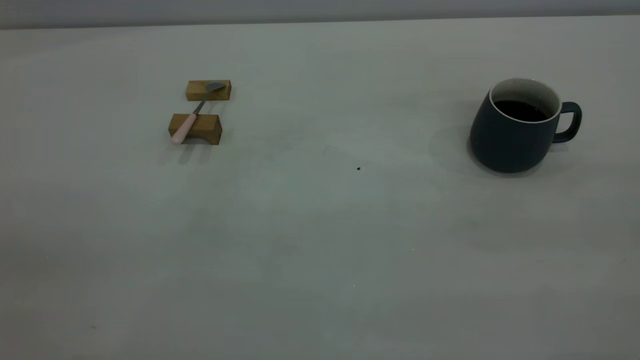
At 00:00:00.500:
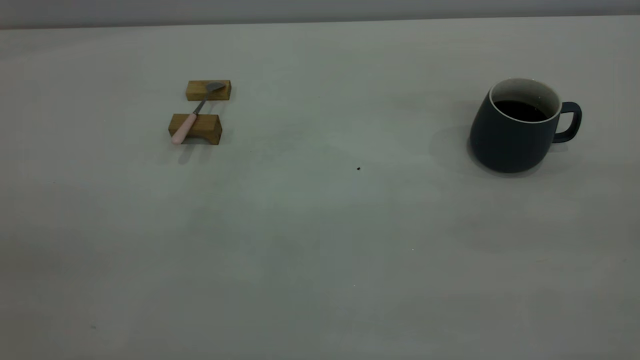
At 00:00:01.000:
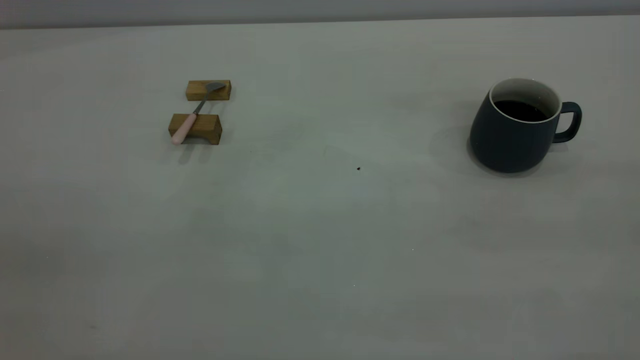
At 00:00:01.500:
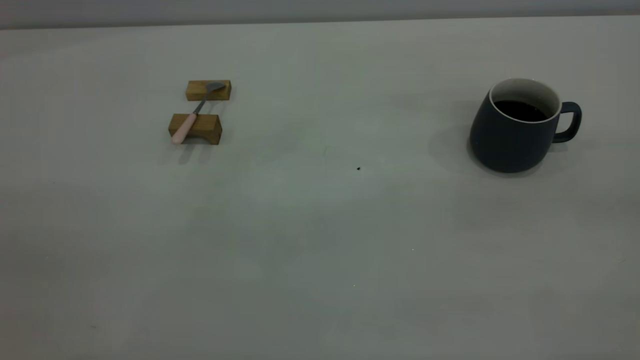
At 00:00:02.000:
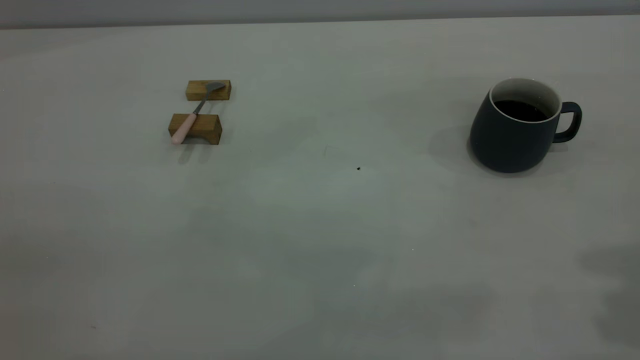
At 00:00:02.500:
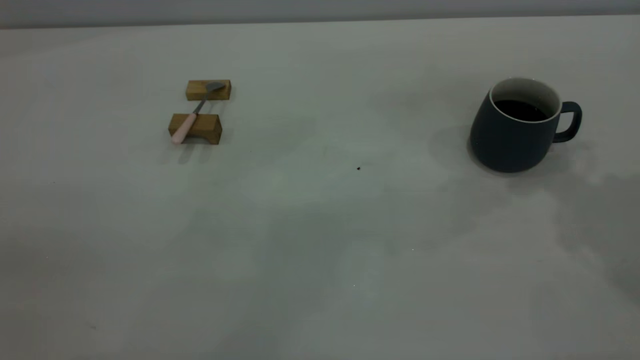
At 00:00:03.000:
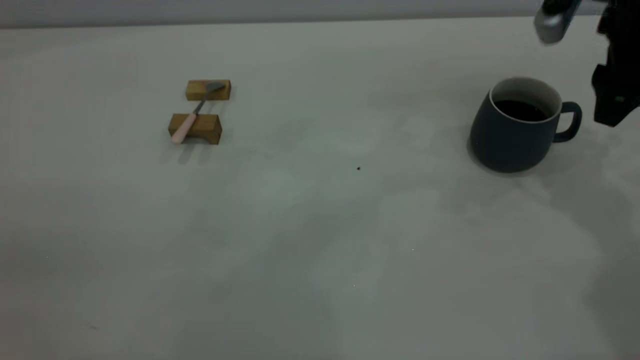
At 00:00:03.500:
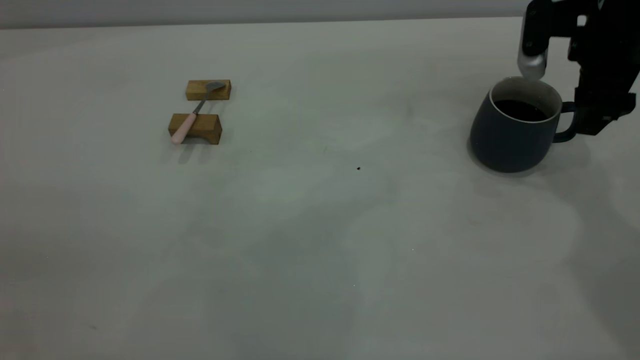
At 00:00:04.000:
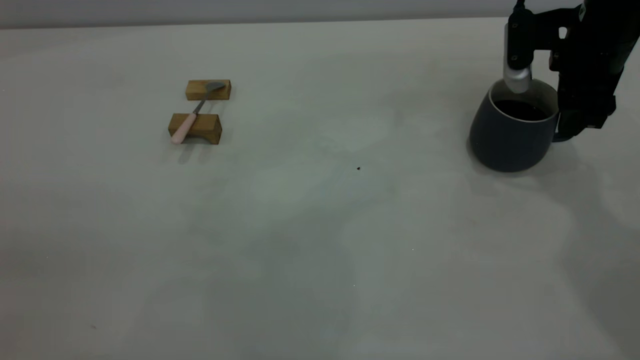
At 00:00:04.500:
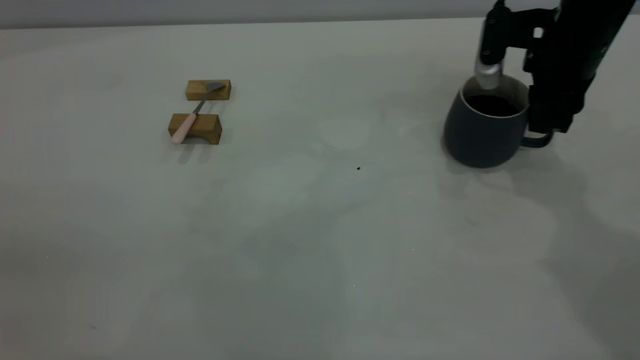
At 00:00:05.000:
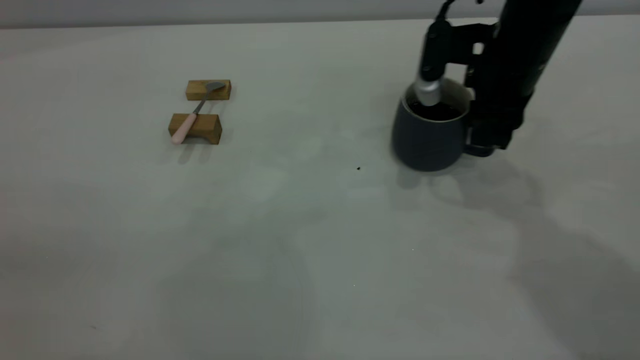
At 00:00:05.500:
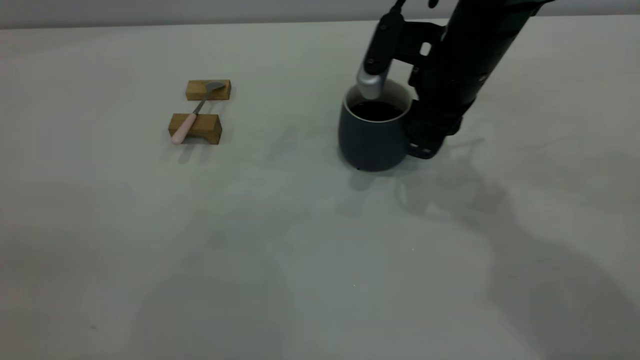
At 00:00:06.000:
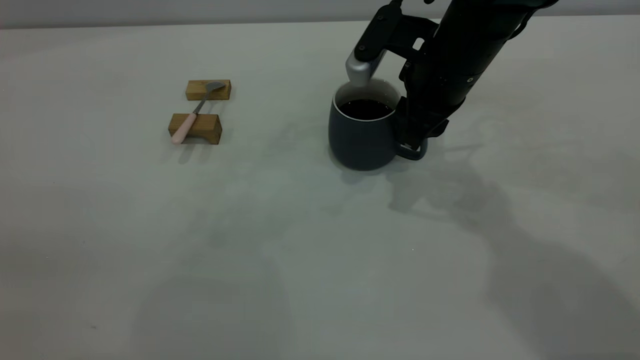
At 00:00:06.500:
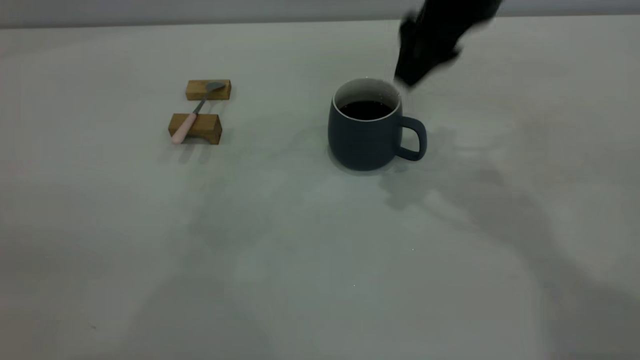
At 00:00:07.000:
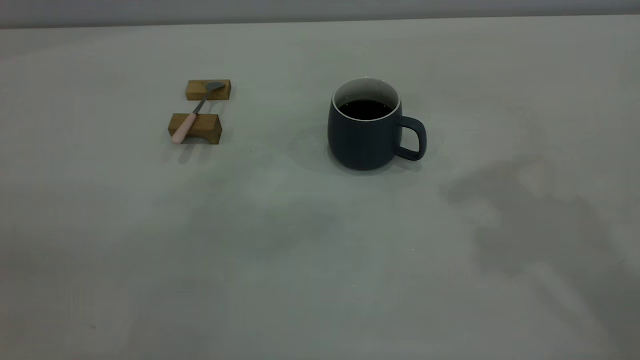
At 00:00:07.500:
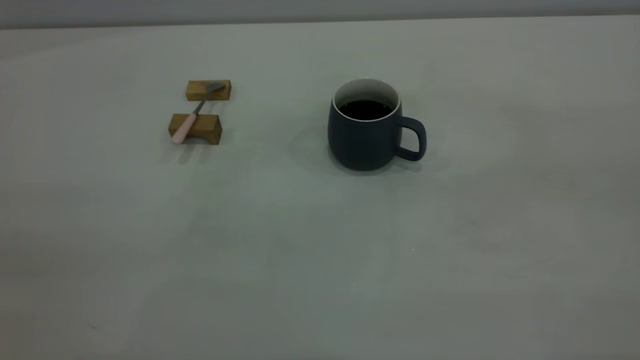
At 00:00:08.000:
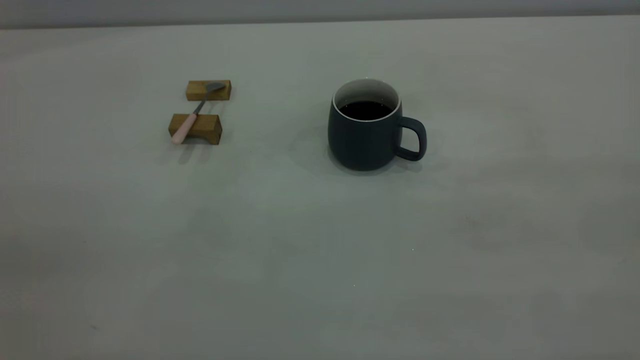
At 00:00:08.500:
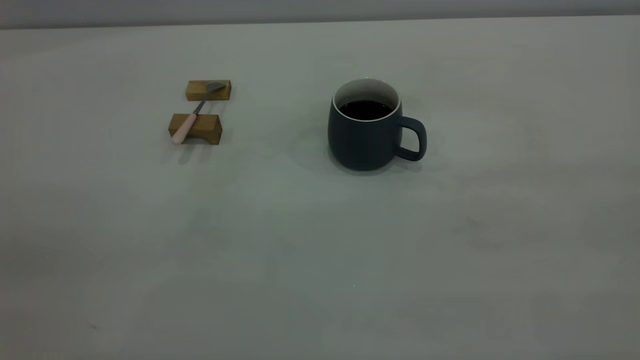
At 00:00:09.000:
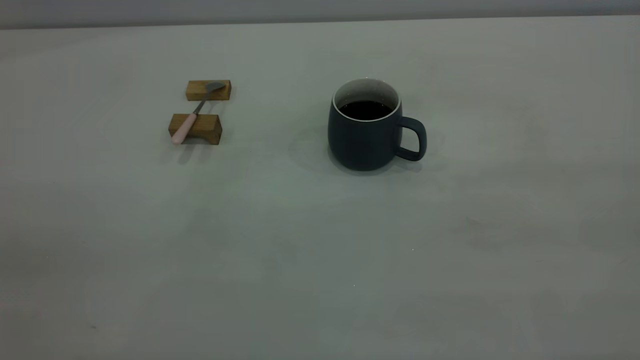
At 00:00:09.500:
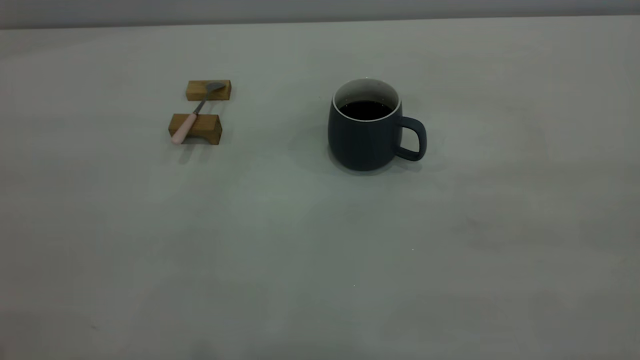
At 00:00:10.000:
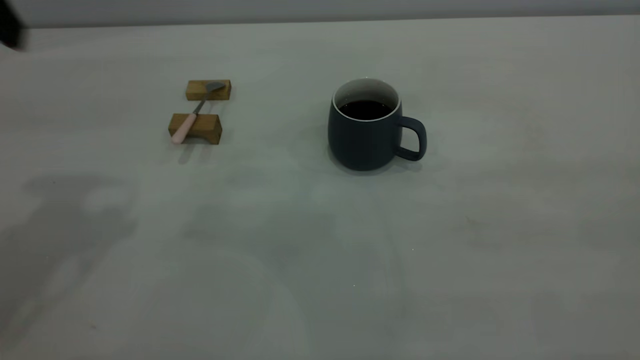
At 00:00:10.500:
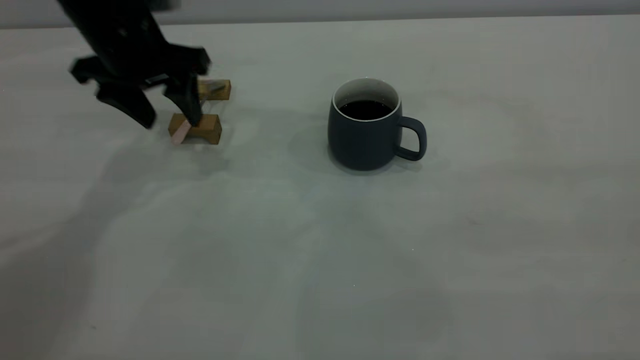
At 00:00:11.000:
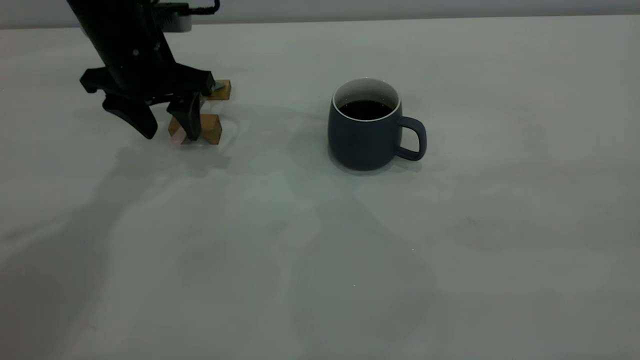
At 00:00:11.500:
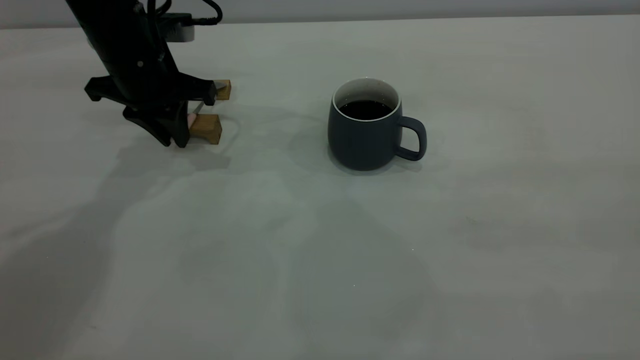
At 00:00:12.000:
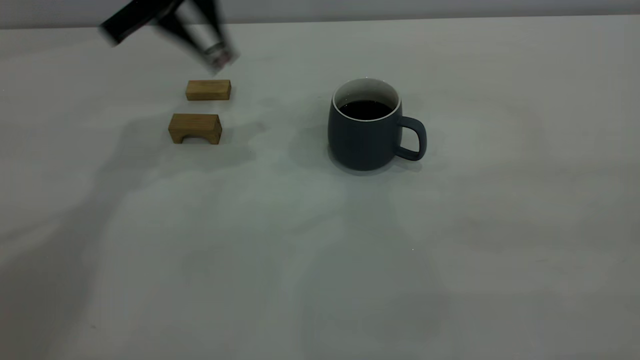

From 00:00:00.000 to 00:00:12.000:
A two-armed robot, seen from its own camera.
Step, from 00:00:00.000 to 00:00:06.000: Move the cup with coffee to the center of view.
Step, from 00:00:07.000 to 00:00:11.500: Pick up the spoon.
From 00:00:02.000 to 00:00:04.000: The right gripper travels forward and downward by roughly 30 cm, and closes its fingers.
From 00:00:04.000 to 00:00:06.000: The right gripper shifts some 15 cm to the left.
From 00:00:06.000 to 00:00:08.000: The right gripper goes approximately 50 cm backward, upward and to the right, and opens.
From 00:00:10.000 to 00:00:12.000: The left gripper moves forward and to the right, some 20 cm, reaches some 15 cm downward, then returns, and closes its fingers.

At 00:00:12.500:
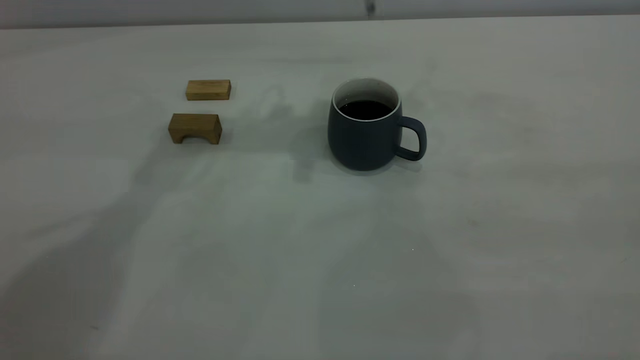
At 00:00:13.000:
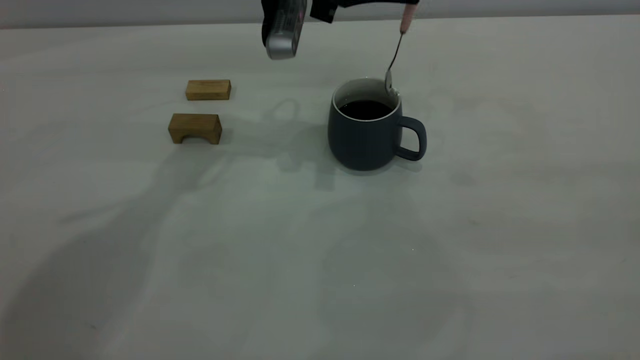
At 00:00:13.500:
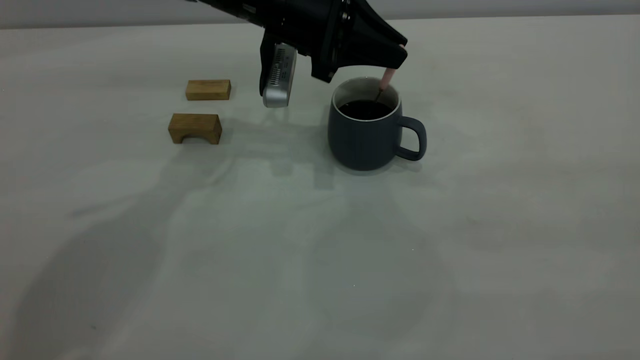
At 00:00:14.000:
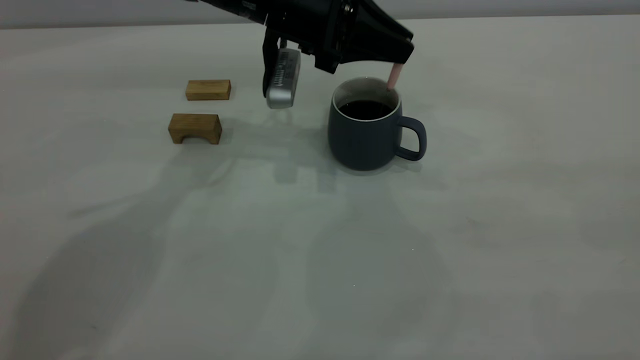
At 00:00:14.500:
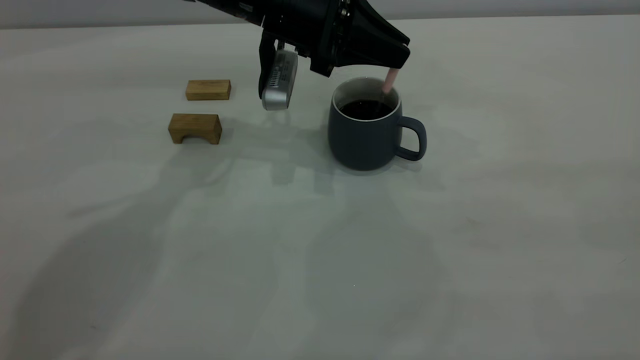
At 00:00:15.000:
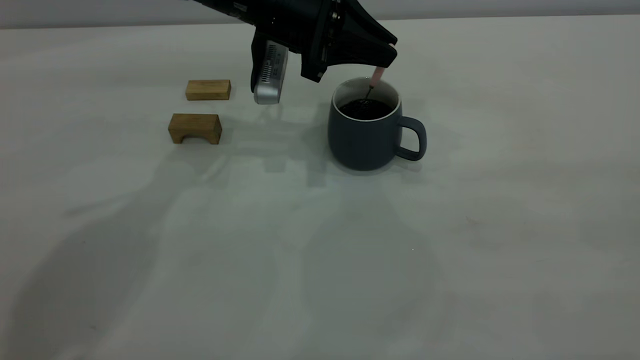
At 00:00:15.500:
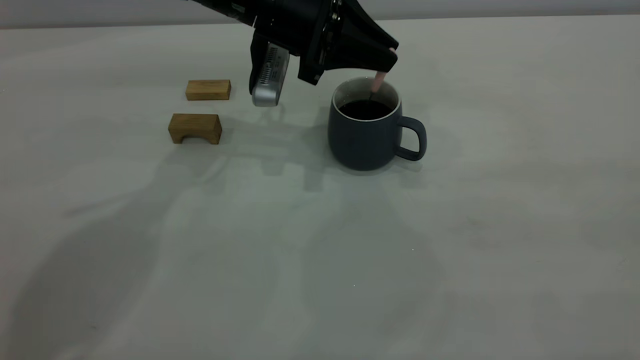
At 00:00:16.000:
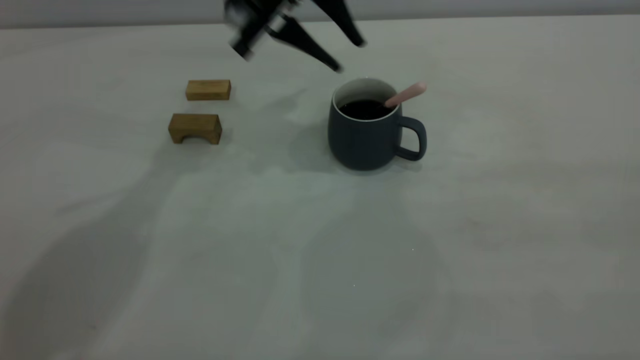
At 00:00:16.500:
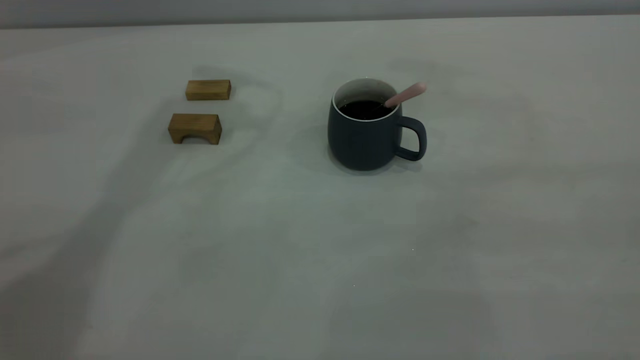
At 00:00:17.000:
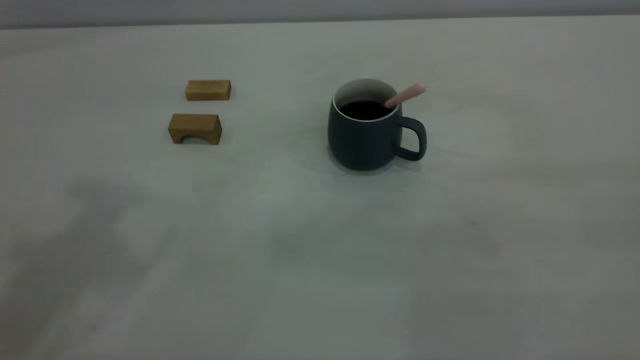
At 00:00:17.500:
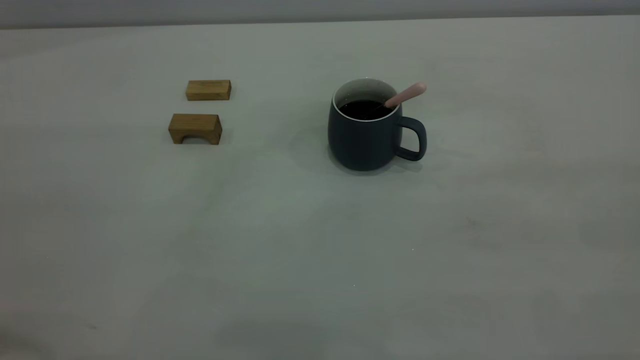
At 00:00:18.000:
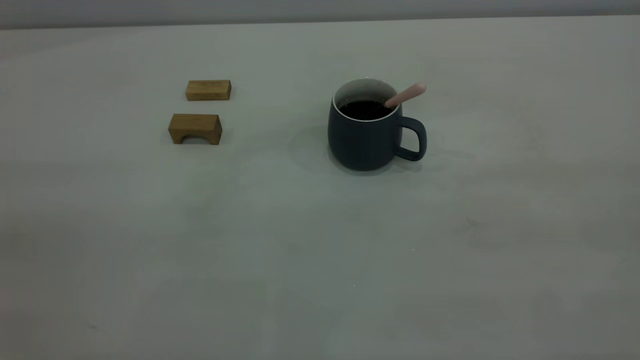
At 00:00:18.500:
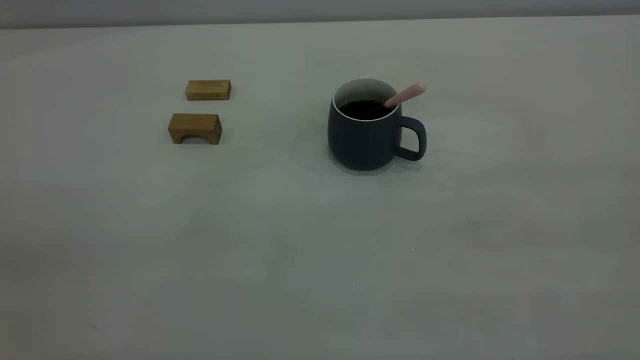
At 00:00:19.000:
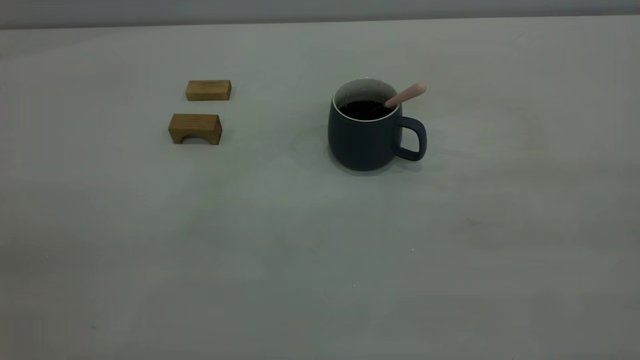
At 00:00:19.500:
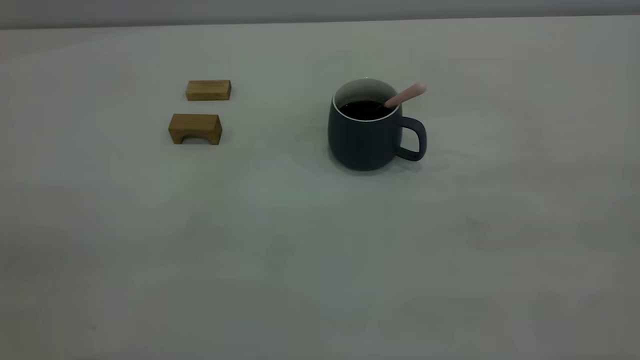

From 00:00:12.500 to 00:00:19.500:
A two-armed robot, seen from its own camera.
Step, from 00:00:12.500 to 00:00:16.000: Stir the coffee in the cup.
From 00:00:12.500 to 00:00:14.500: The left gripper goes roughly 10 cm downward.
From 00:00:14.500 to 00:00:16.000: The left gripper goes some 5 cm upward, and opens up.
From 00:00:16.000 to 00:00:17.500: The left gripper heads backward and to the left, covering roughly 40 cm.
